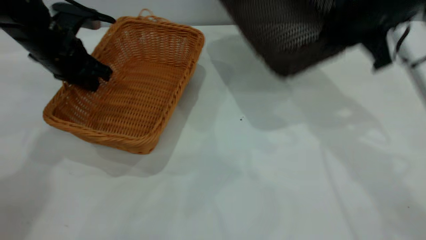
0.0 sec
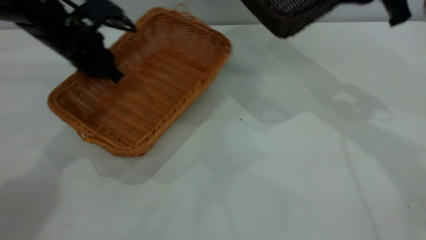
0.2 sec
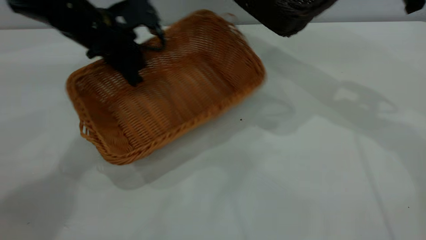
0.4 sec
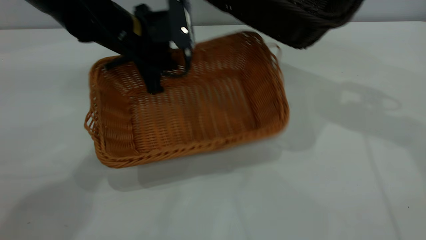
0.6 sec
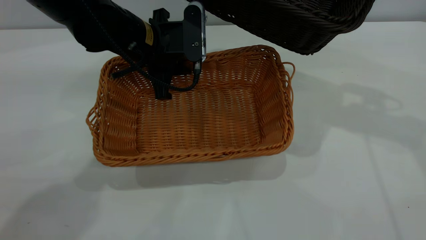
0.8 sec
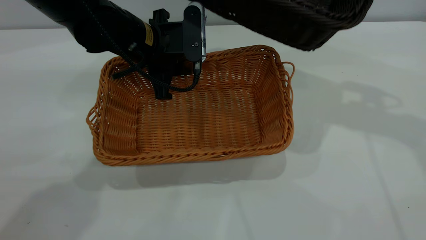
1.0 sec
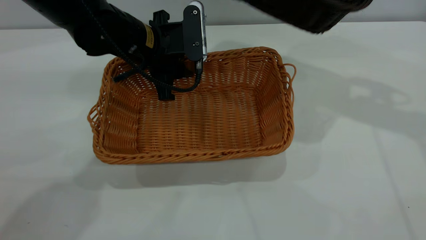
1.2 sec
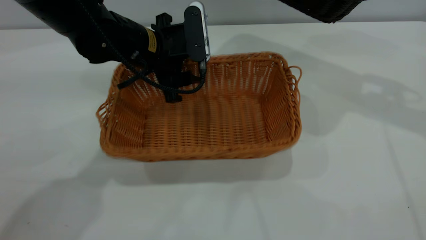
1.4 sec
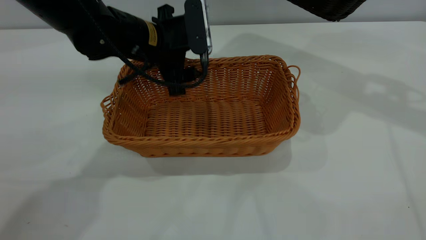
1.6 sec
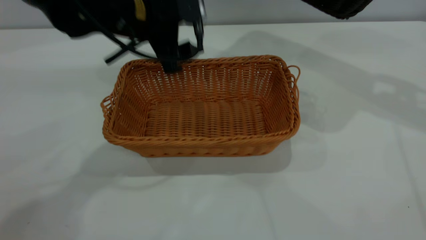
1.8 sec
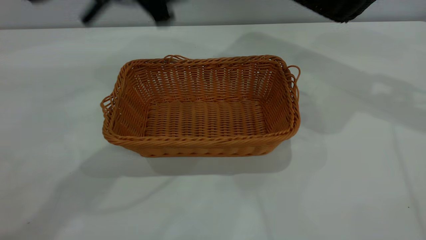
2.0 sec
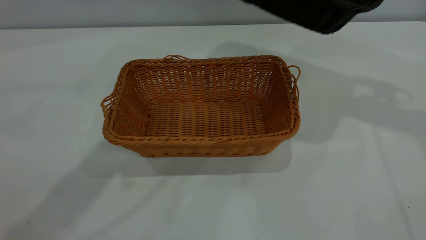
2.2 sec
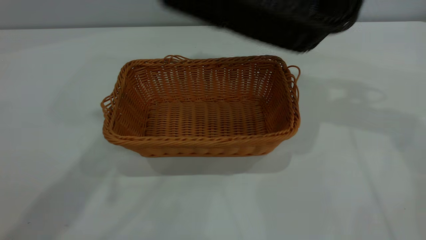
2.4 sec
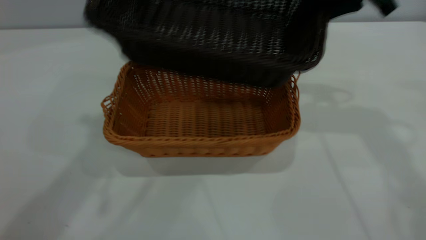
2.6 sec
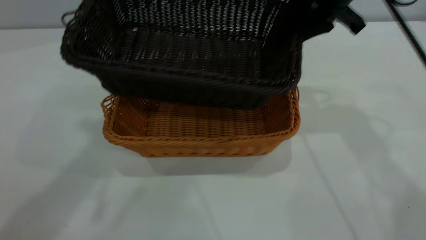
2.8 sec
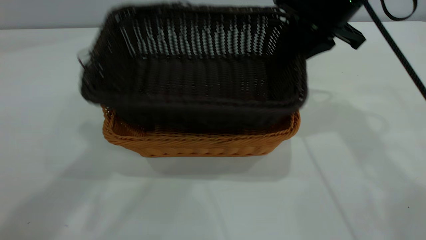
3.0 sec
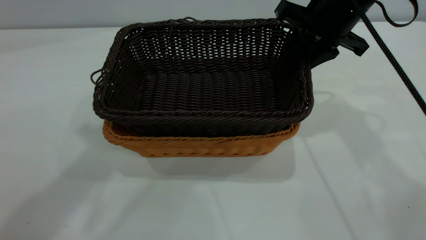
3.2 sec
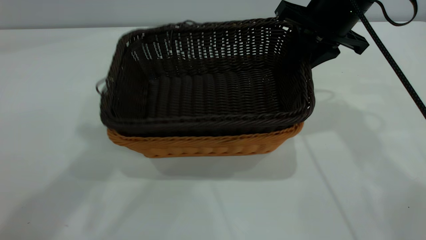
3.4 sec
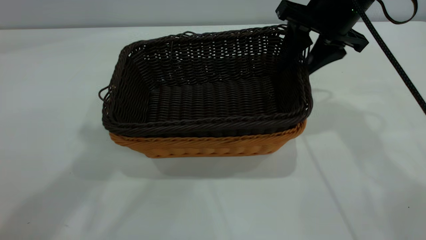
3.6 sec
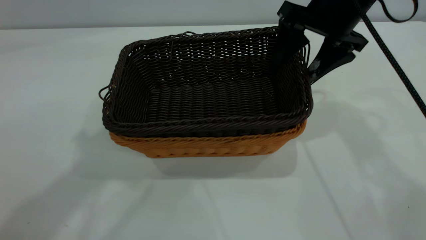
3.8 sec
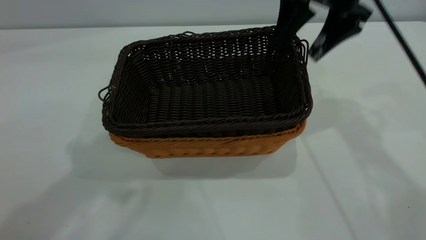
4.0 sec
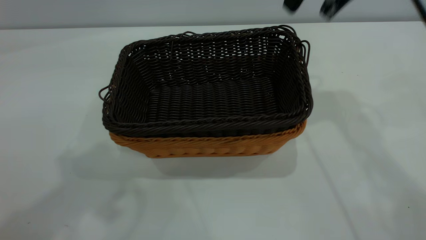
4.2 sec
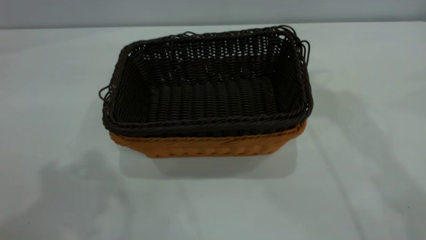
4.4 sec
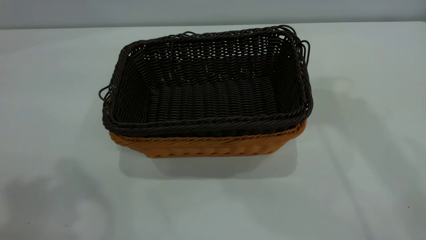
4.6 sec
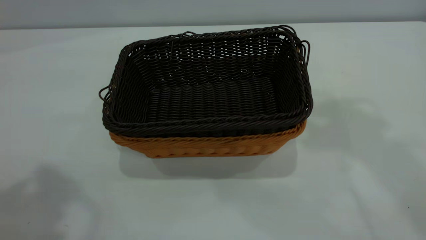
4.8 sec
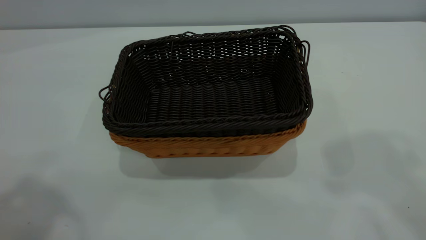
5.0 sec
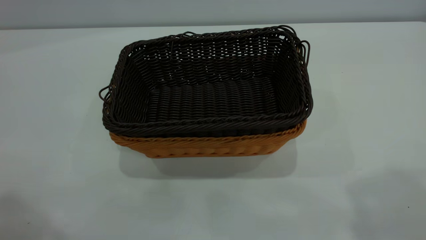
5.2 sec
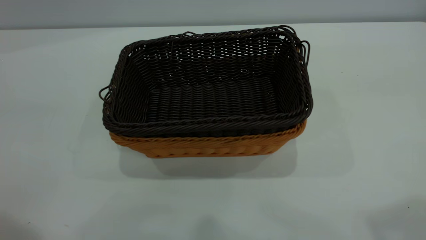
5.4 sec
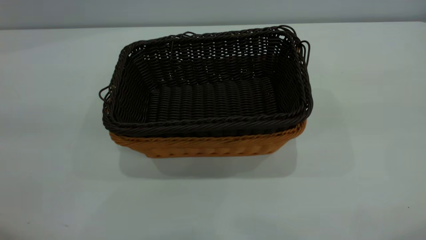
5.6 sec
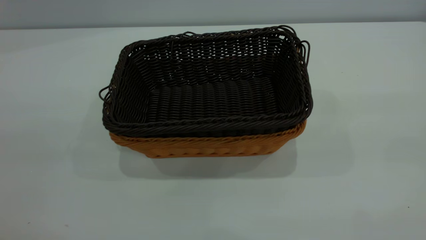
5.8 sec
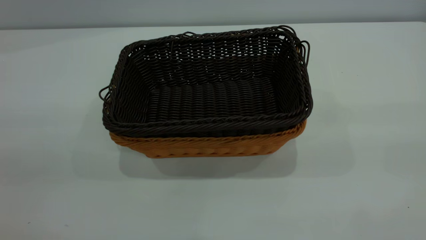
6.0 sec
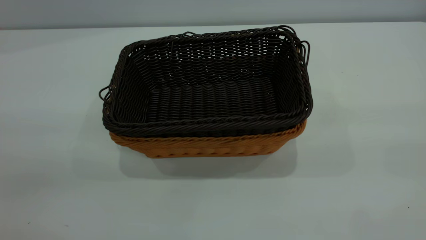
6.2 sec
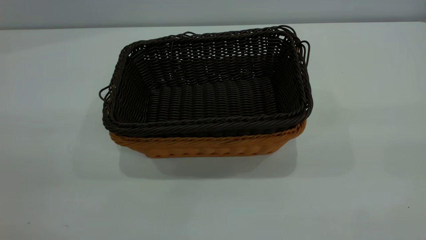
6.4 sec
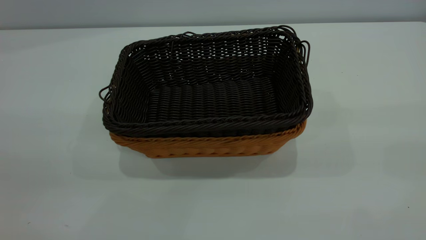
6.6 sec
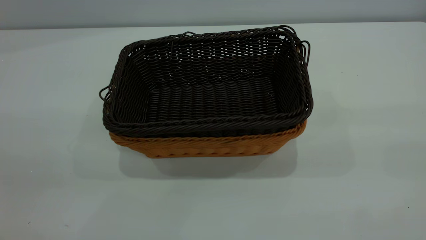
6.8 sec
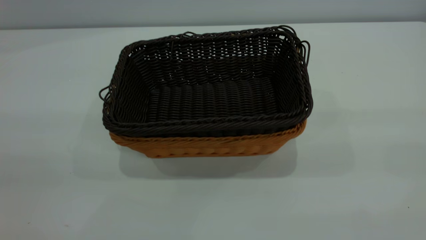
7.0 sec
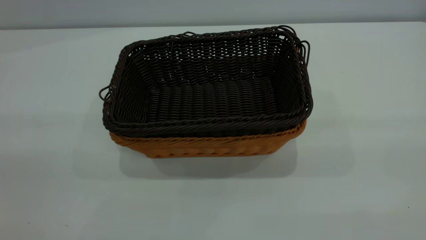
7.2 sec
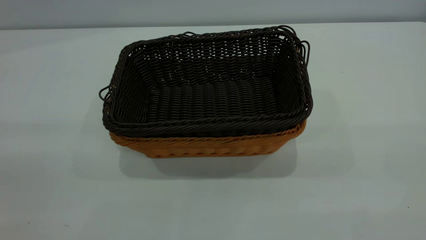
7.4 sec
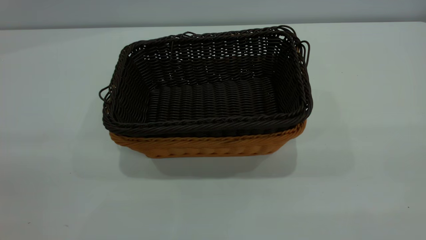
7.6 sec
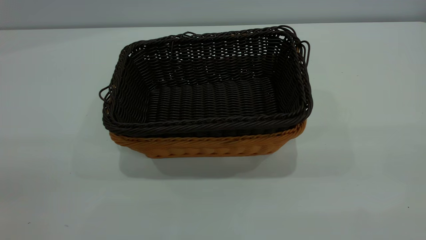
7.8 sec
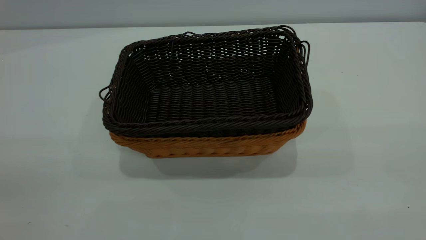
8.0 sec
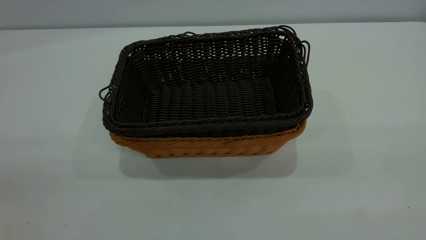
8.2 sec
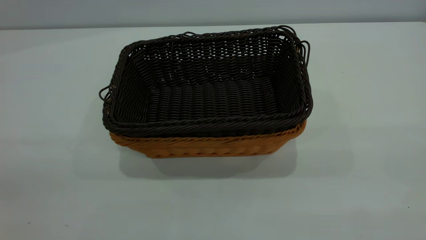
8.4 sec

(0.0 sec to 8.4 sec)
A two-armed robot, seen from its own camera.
Task of the whole recording: the left gripper grasp the brown basket and place it in the center of the table, the right gripper grasp the black basket and place it inside the brown one.
Step, 0.0 sec - 1.6 sec: Place the light-colored basket in the center.
Step, 1.8 sec - 4.0 sec: Place the dark basket on top of the light basket.
0.0 sec - 1.4 sec: The right gripper is displaced to the right and upward by approximately 15 cm; the left gripper shifts some 15 cm to the right, and opens its fingers.
1.4 sec - 2.8 sec: The left gripper goes roughly 35 cm upward. The right gripper shifts roughly 15 cm to the left and downward.
2.8 sec - 4.2 sec: The right gripper heads upward, covering some 10 cm, and opens; the left gripper shifts by approximately 5 cm.
4.2 sec - 5.6 sec: The right gripper moves backward, roughly 30 cm.
